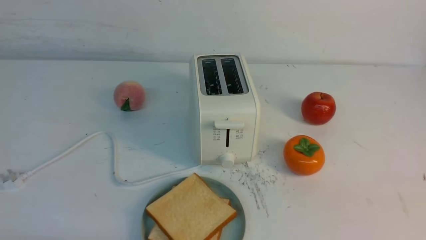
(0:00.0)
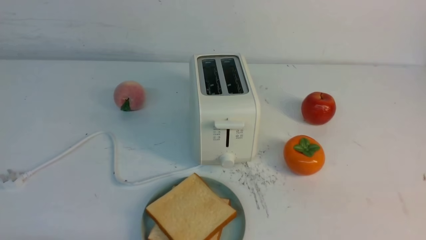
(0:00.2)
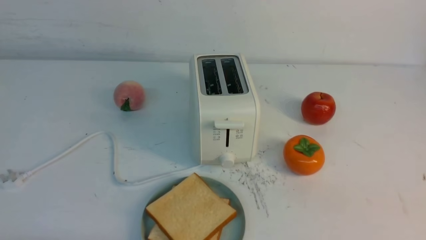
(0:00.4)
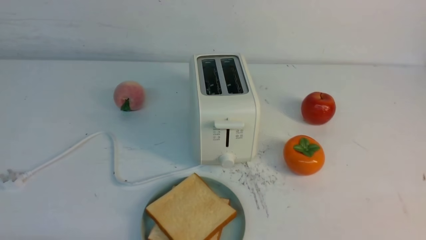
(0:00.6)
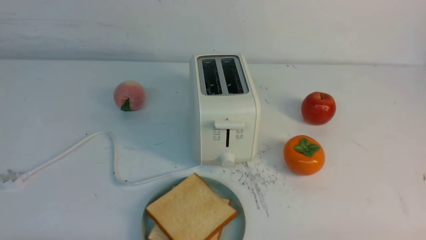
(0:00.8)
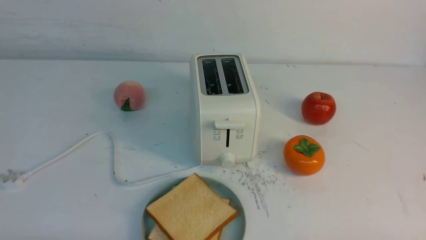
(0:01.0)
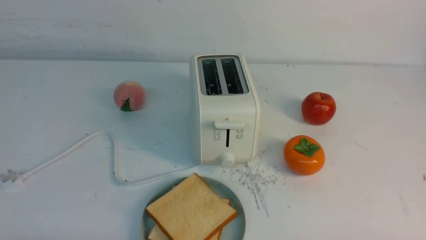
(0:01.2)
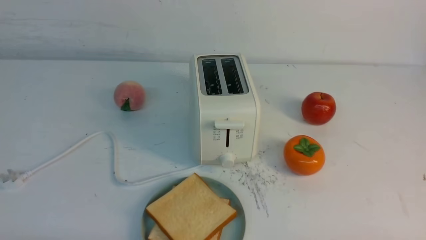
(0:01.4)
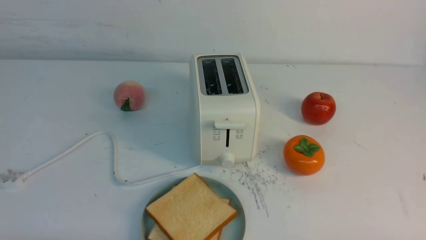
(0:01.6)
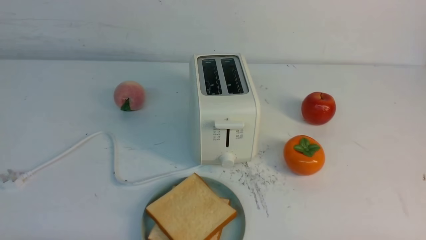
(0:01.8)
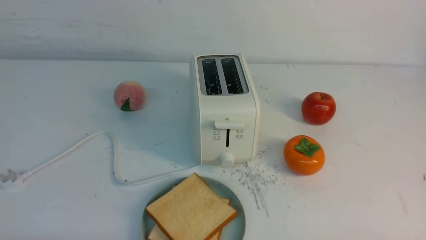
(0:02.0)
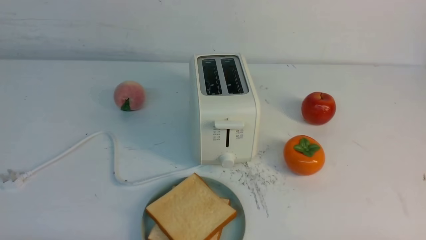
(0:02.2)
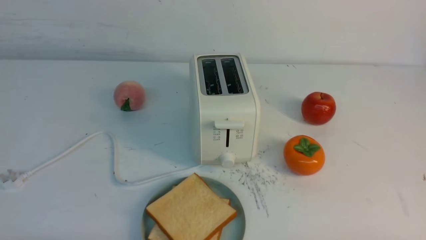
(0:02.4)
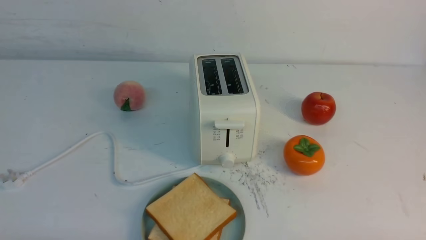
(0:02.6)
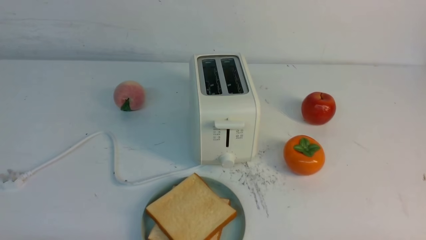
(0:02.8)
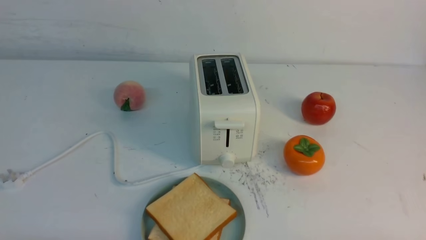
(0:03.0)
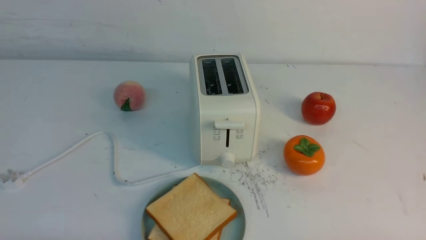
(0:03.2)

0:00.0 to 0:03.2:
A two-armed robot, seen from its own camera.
Task of the whole recording: take toasted bread from bread machine on white table place on plate.
0:01.6 to 0:03.2: Both grippers stay about where they are.

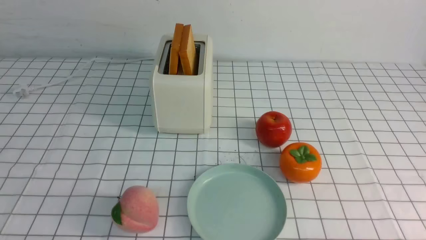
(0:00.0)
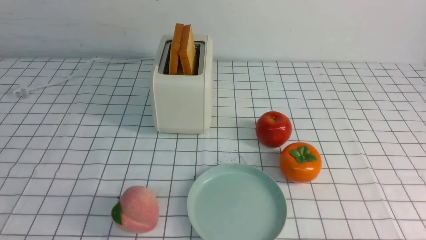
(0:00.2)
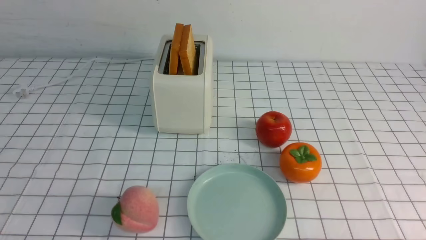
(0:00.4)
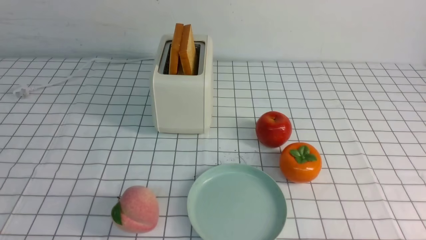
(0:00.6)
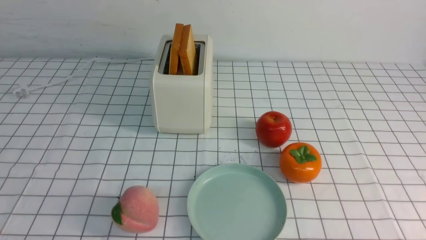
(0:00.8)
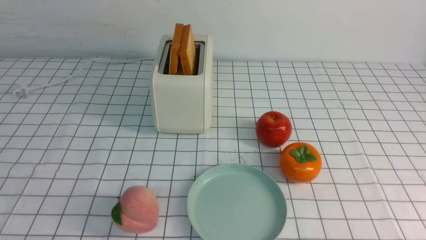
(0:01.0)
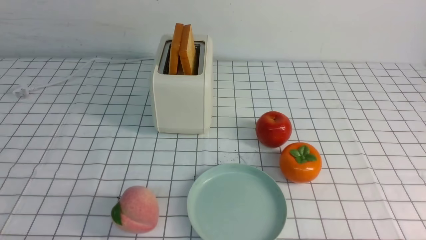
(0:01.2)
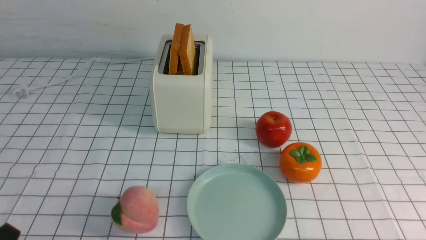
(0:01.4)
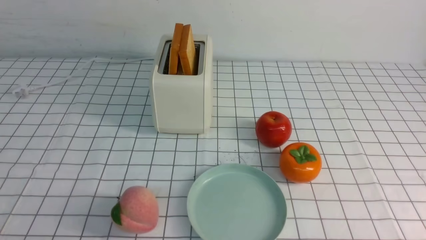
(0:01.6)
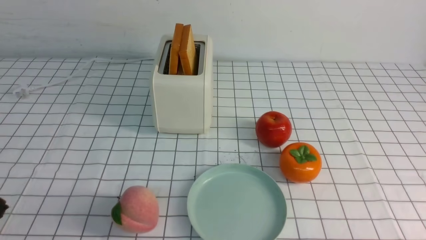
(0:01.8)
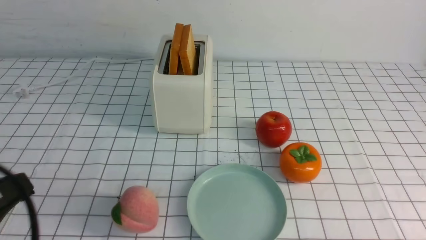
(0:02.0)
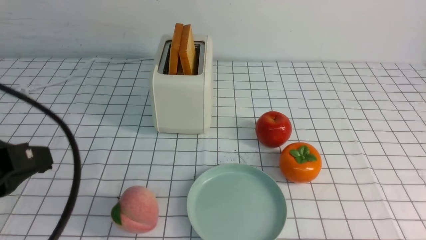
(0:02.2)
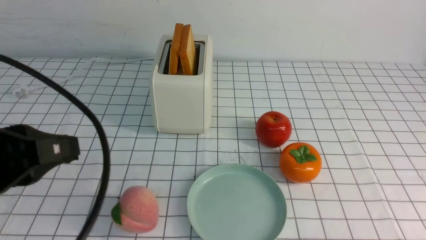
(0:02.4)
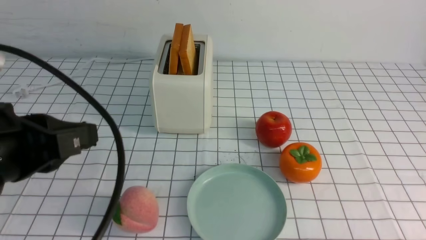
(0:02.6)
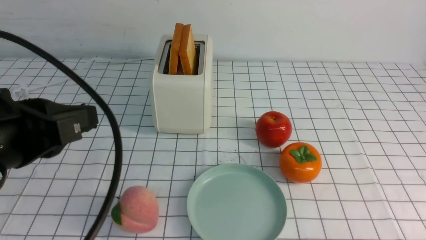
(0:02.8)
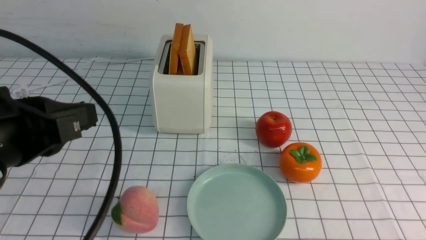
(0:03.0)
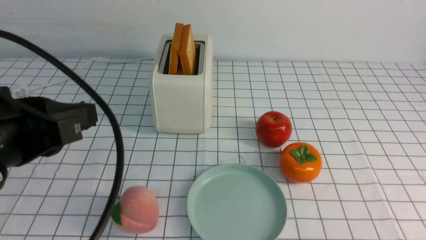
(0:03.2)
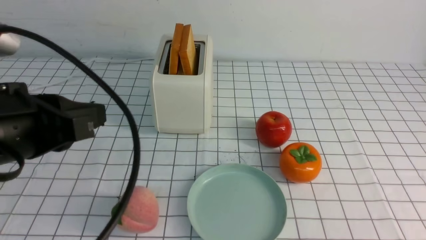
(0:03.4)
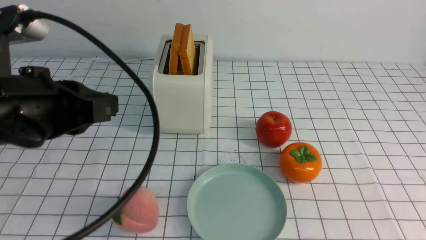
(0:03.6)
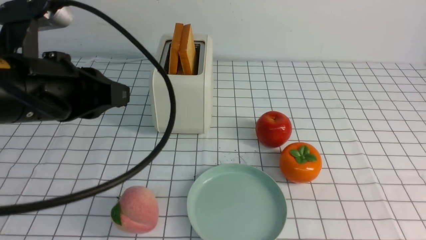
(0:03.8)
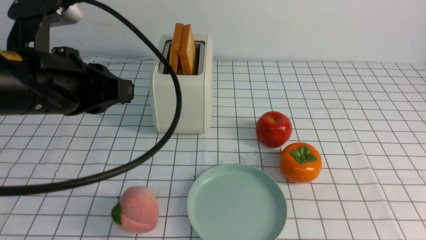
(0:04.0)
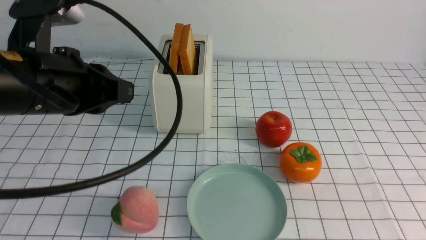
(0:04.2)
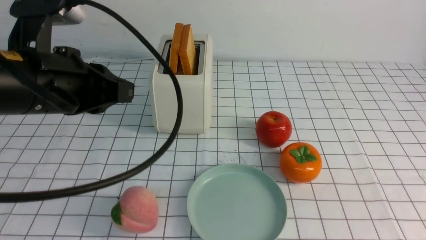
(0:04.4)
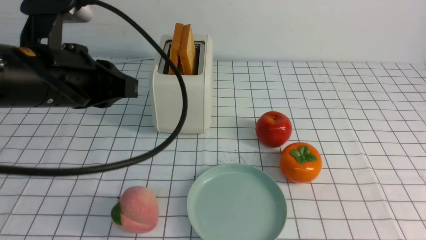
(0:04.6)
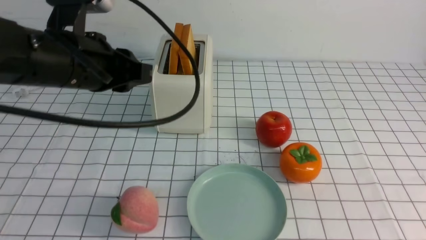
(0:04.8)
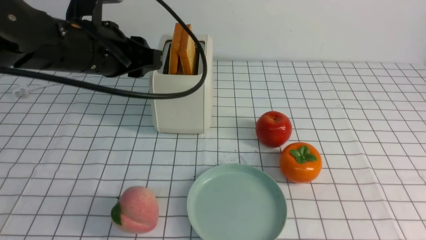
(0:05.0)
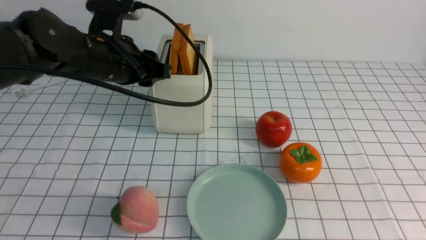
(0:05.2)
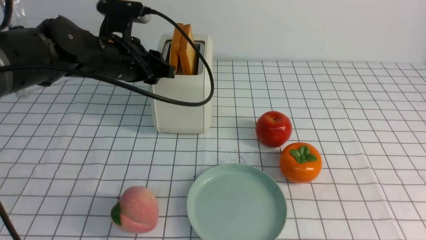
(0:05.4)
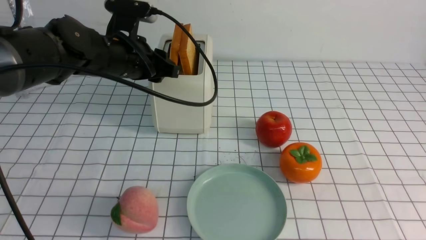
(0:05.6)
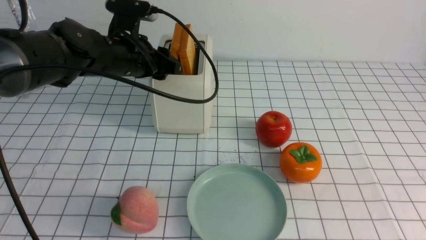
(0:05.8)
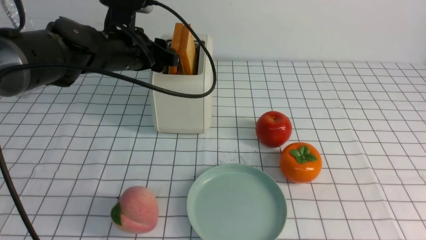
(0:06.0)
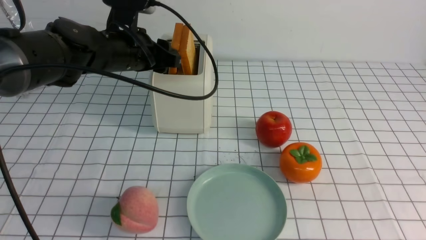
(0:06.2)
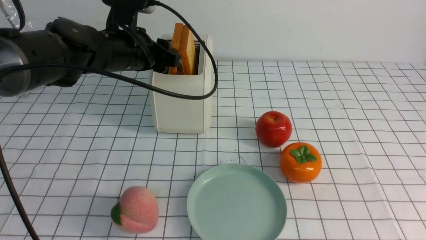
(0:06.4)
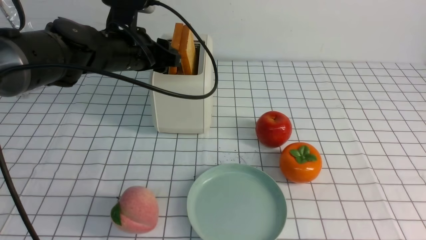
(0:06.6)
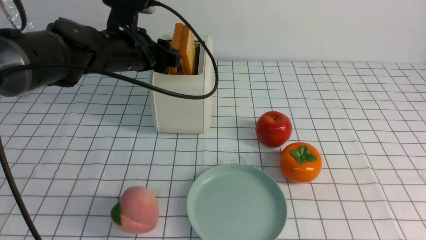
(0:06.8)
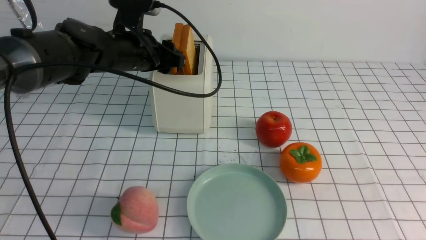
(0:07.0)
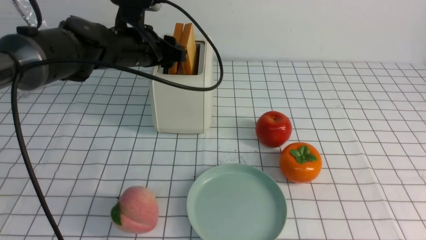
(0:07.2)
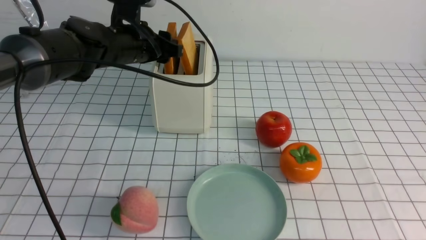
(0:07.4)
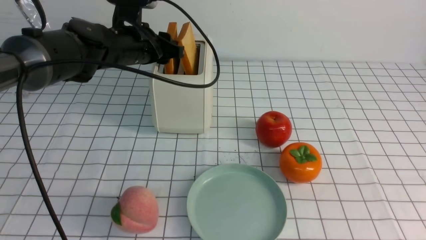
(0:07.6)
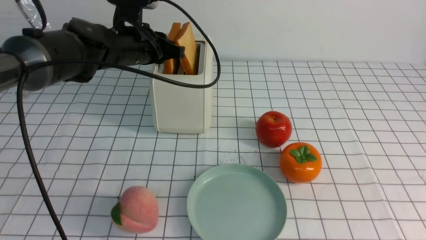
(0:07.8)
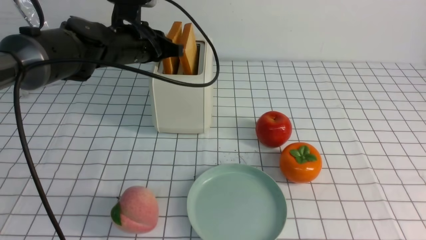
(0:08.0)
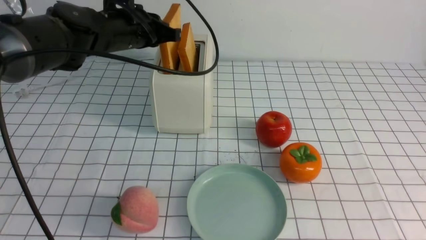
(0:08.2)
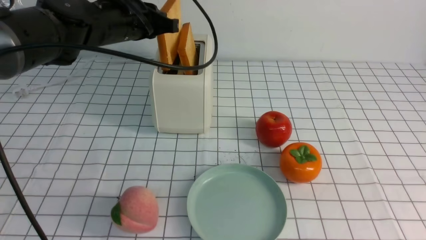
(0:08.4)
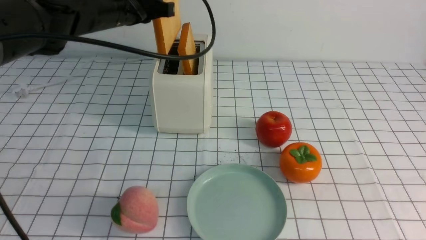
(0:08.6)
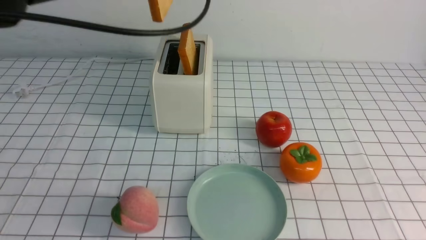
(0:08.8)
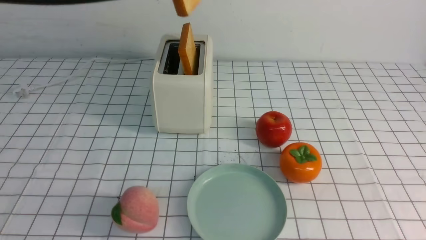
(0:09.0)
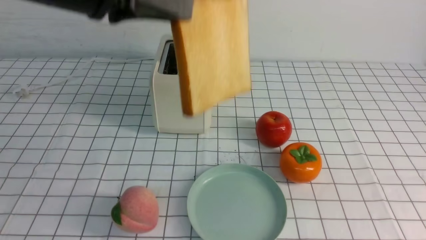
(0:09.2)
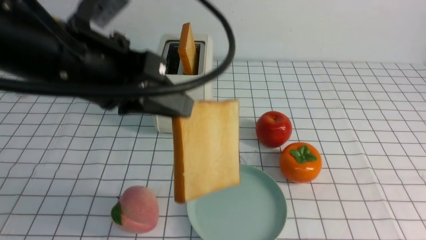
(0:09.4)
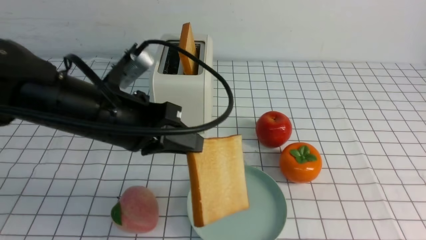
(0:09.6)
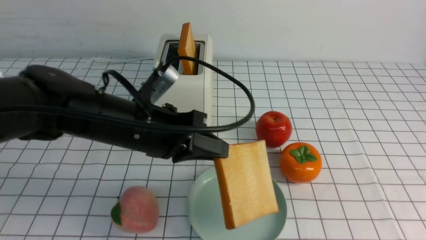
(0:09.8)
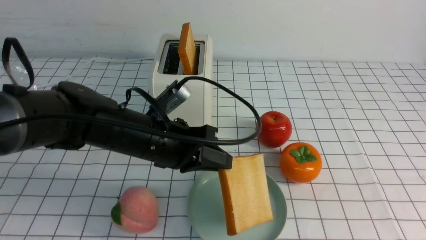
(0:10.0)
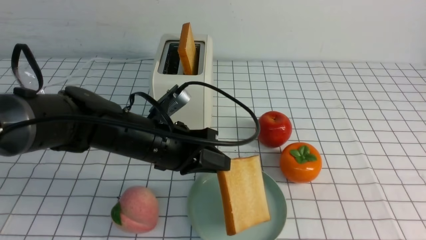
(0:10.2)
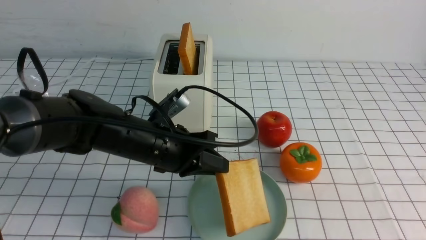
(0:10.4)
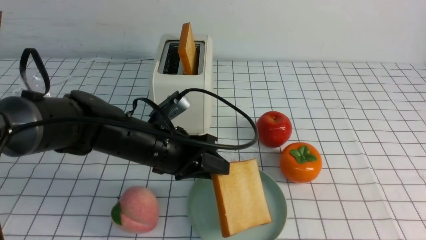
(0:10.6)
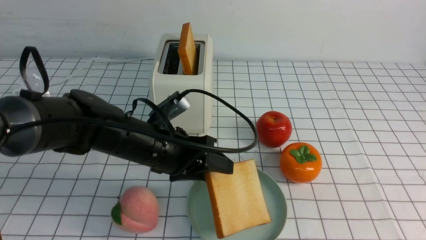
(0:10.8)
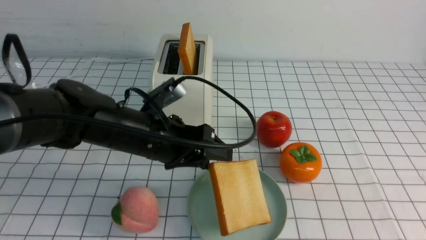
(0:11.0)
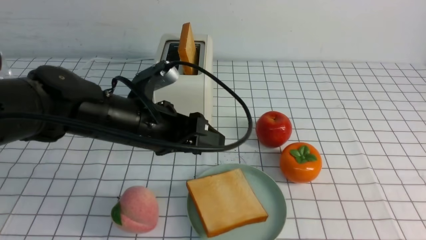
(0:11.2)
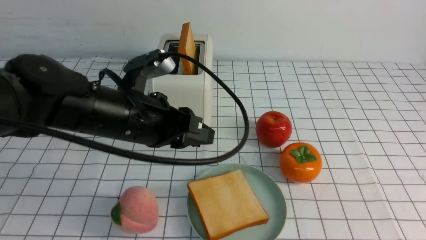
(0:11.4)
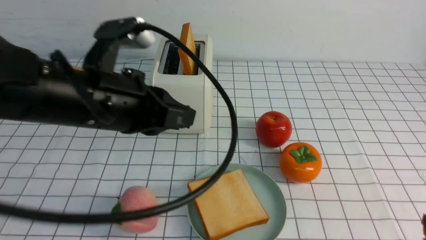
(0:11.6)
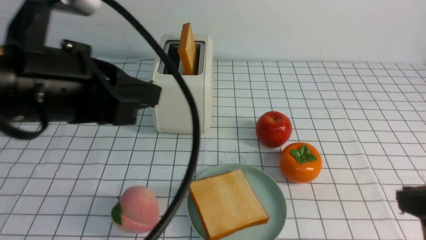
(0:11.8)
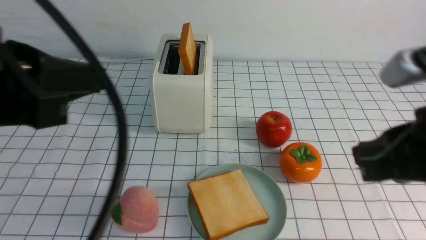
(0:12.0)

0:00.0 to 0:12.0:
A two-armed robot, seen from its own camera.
Task of the whole recording: take toasted bread from bread machine on white checkered table place on plate.
Step, 0:00.0 to 0:08.4: use the left arm to take out a slice of bread.
Step, 0:08.6 to 0:11.0: use the left arm to put a slice of bread into the empty plate.
0:01.6 to 0:03.0: The left gripper moves upward, forward and to the right, approximately 20 cm, and closes its fingers.
0:03.0 to 0:04.4: The left gripper goes roughly 10 cm forward, while the right gripper goes roughly 10 cm upward, and closes up.
0:04.4 to 0:06.0: The left gripper heads forward, covering roughly 15 cm, and opens.
0:06.0 to 0:07.6: The grippers make only small movements.
0:07.6 to 0:09.0: The left gripper shifts about 25 cm upward and backward, and closes its fingers.
0:09.0 to 0:10.4: The left gripper goes about 25 cm downward.
0:10.4 to 0:12.0: The right gripper goes approximately 15 cm forward, to the left and upward. Meanwhile the left gripper heads upward, backward and to the left, covering approximately 30 cm, and opens, then closes again.

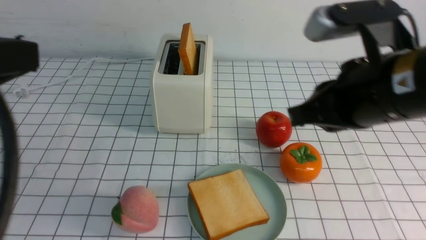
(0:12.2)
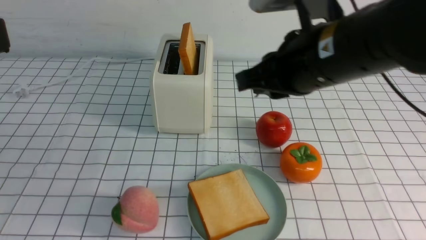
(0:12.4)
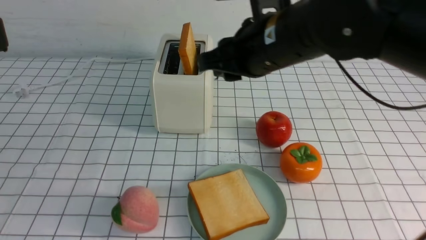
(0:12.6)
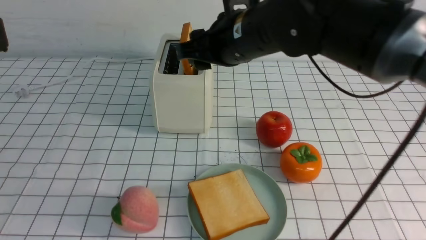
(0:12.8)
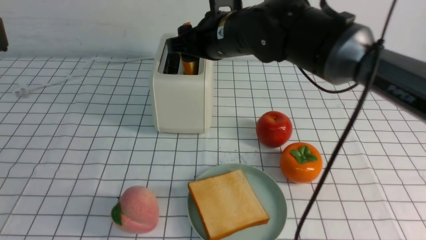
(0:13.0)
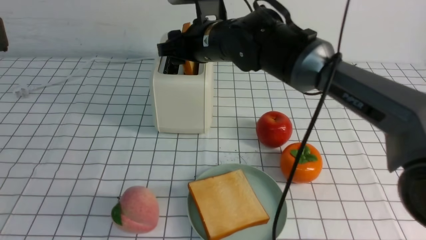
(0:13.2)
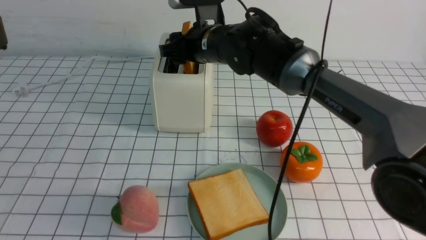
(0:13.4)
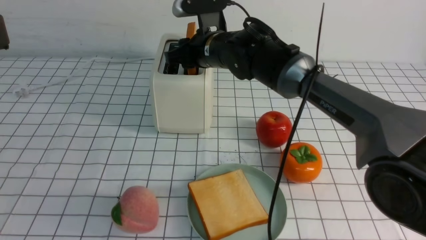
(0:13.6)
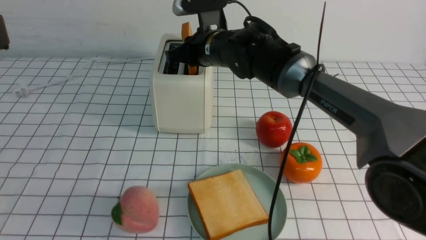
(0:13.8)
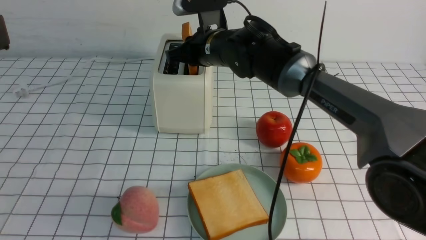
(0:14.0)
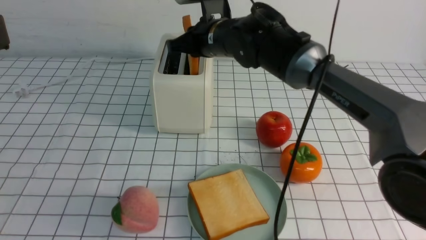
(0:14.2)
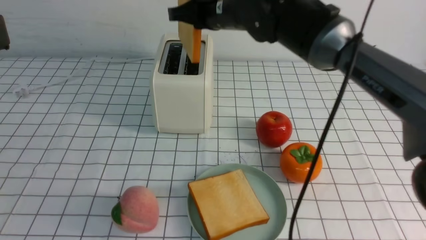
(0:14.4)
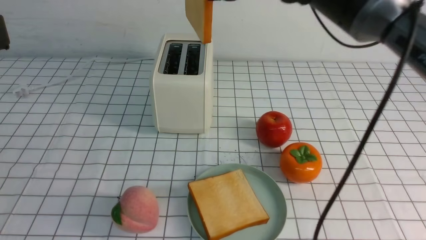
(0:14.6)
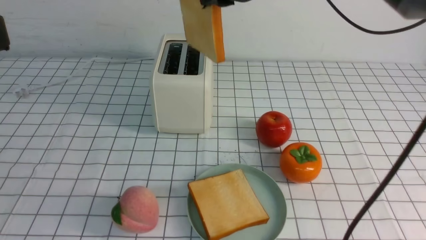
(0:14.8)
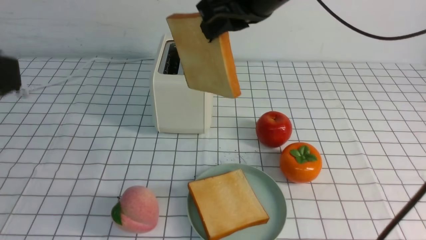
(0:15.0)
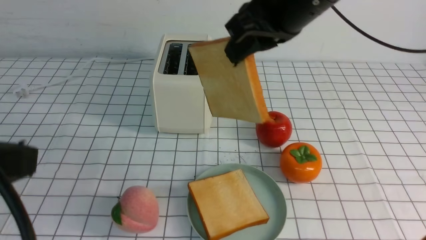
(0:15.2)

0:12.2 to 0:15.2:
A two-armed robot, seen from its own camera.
Task of the whole recording: take toasted bread from bread machine on white checkered table place on plate.
Step, 0:12.2 to 0:14.4: use the right arm to take out a slice of bread.
0:12.2 to 0:13.8: The right gripper is displaced forward and to the left by approximately 30 cm, and opens, then closes again.
0:13.8 to 0:15.2: The right gripper shifts roughly 25 cm backward, upward and to the right.
